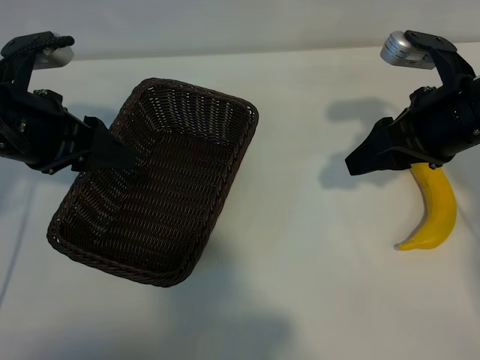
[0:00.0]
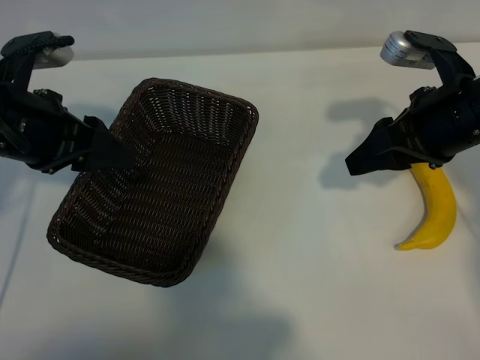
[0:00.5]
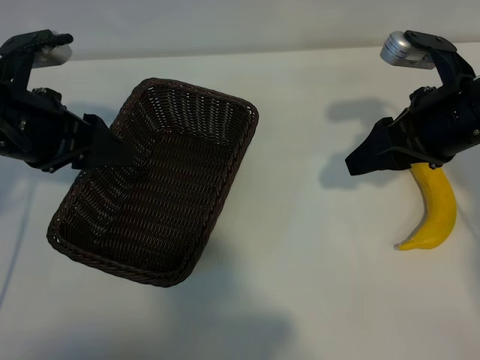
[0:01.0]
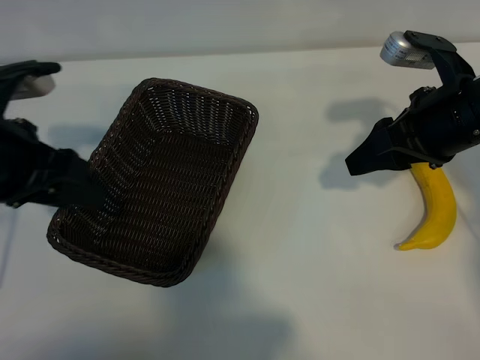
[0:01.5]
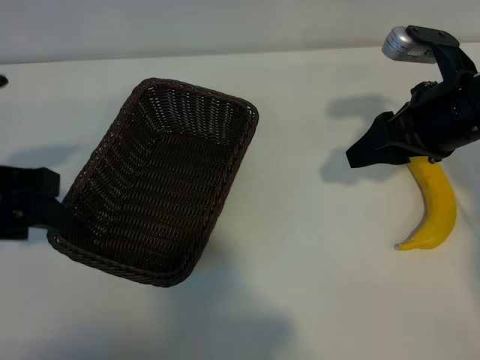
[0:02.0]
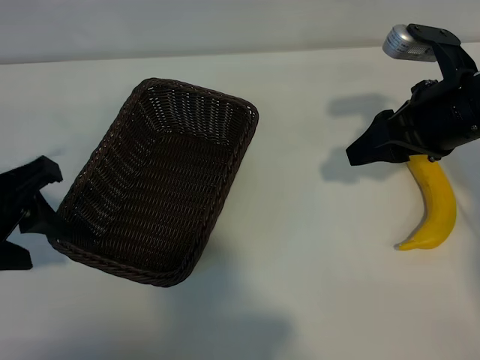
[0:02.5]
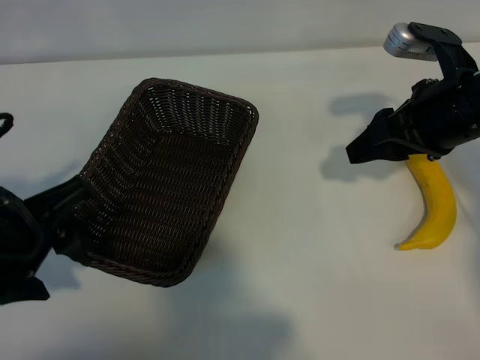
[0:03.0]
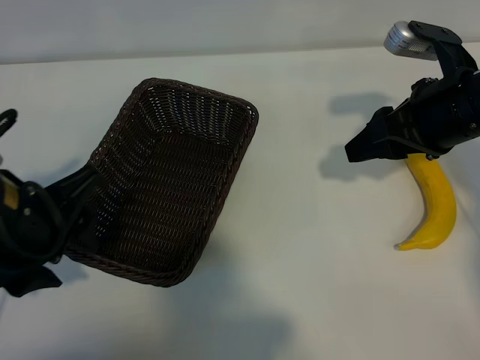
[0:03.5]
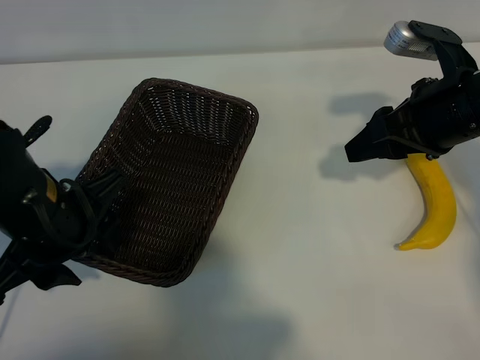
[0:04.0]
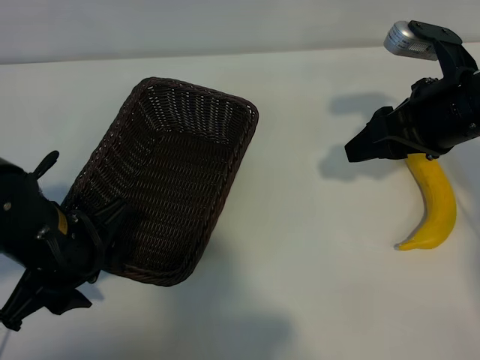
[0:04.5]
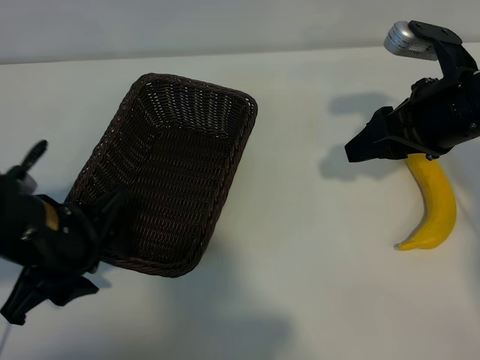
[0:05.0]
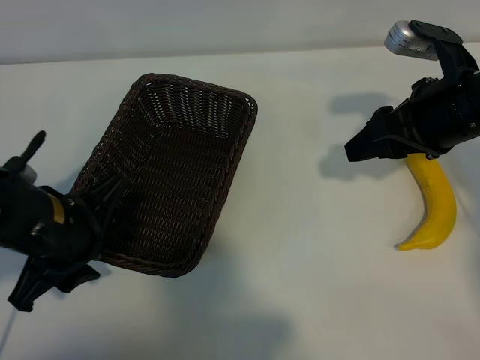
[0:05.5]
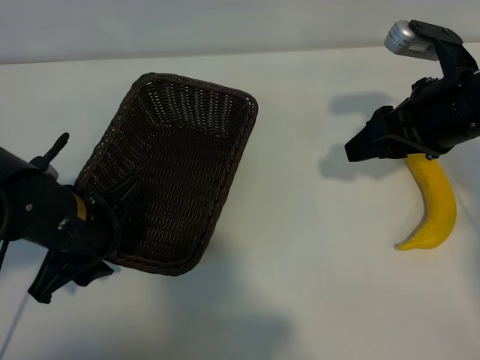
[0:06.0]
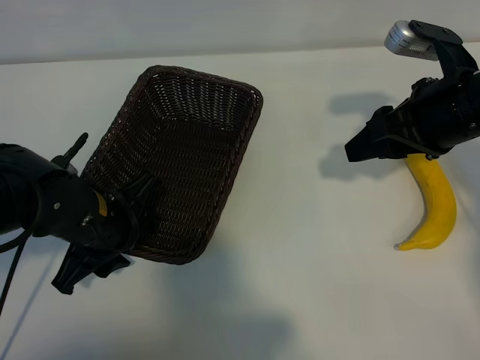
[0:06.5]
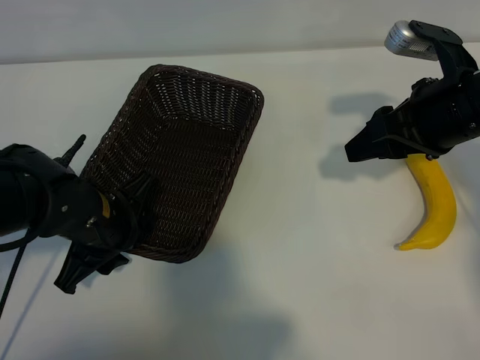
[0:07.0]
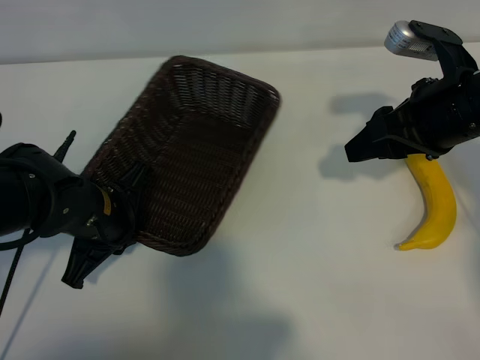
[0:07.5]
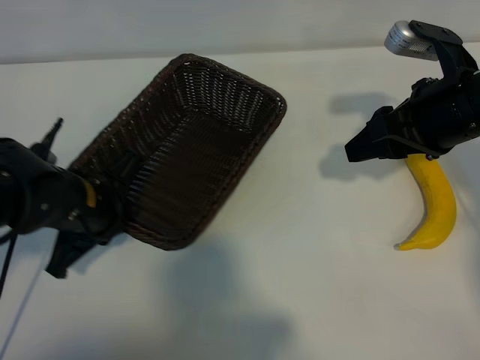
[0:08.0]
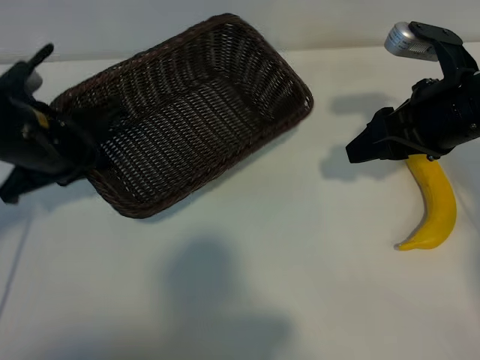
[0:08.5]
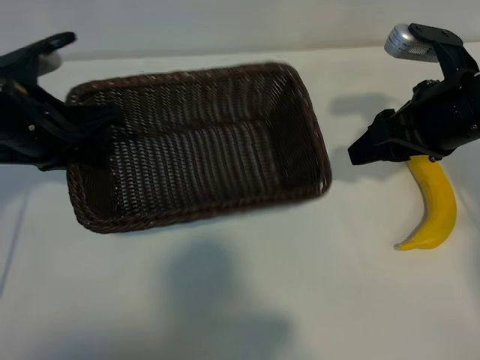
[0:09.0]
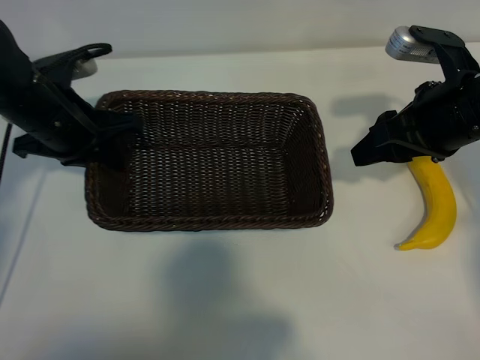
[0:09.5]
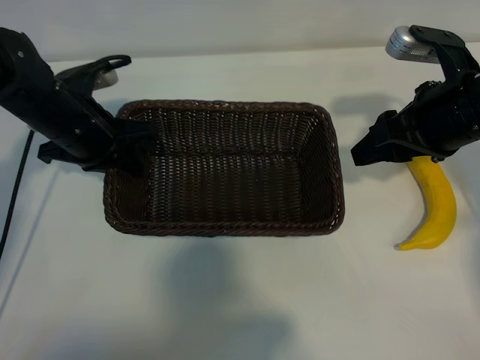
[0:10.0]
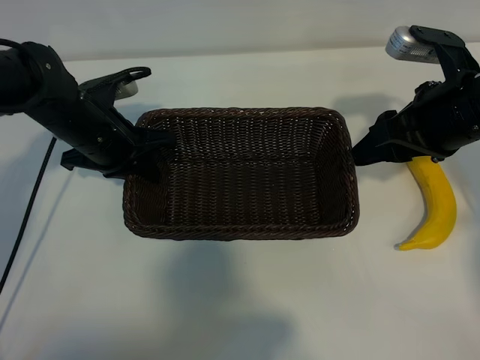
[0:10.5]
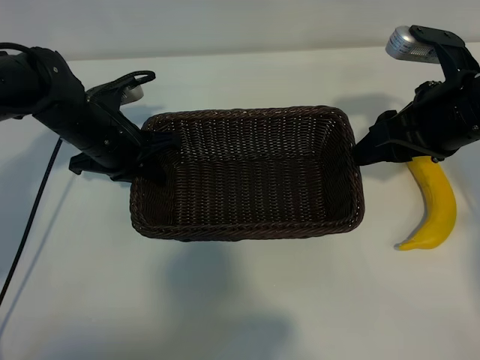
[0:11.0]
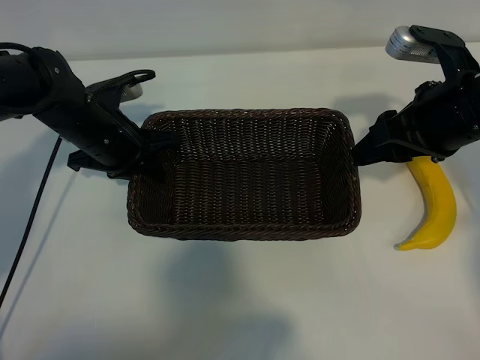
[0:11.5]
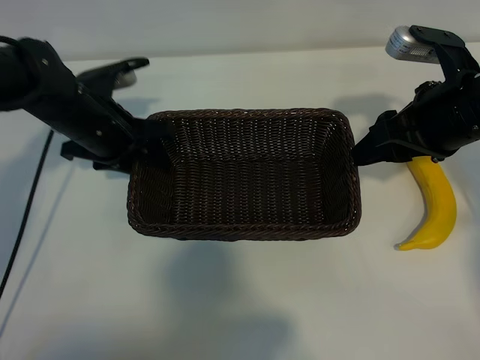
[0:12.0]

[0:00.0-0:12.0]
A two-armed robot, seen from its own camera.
Task of the whole recording: pick up the banana and put it into the basket.
Step, 0:00.5 to 0:07.5: Grasp the basket with the left gripper.

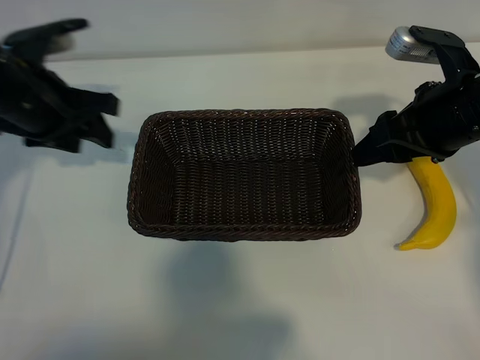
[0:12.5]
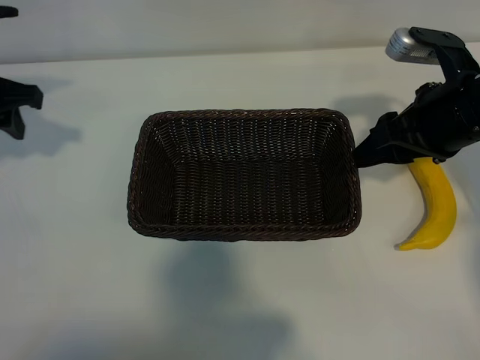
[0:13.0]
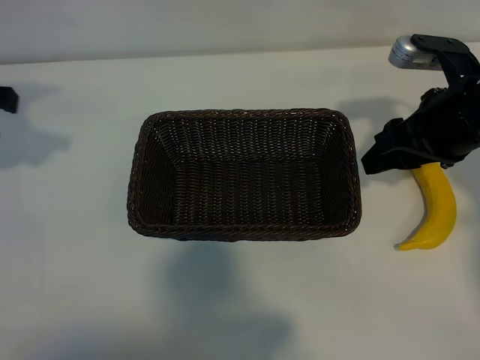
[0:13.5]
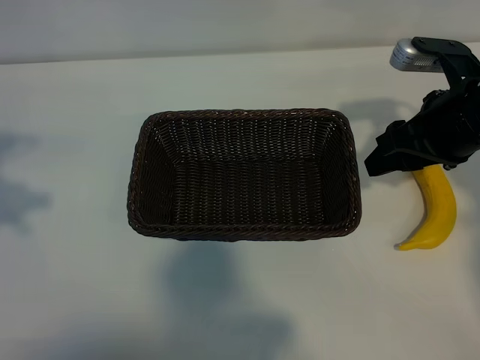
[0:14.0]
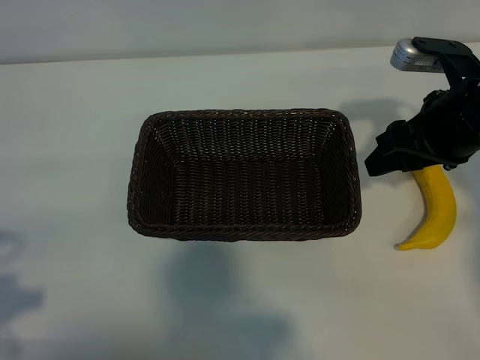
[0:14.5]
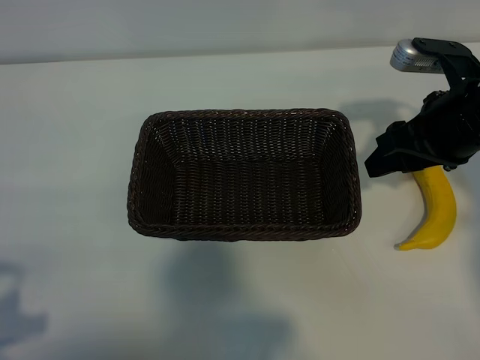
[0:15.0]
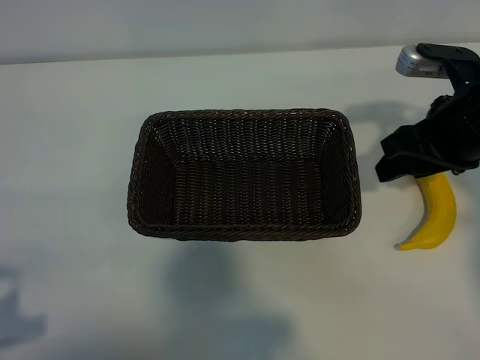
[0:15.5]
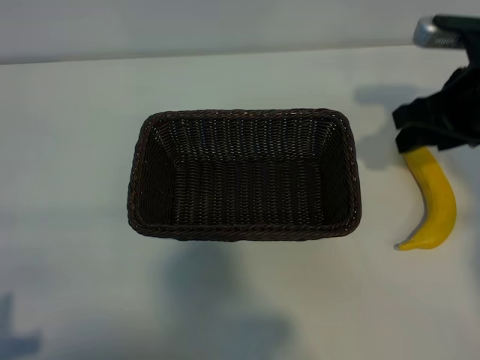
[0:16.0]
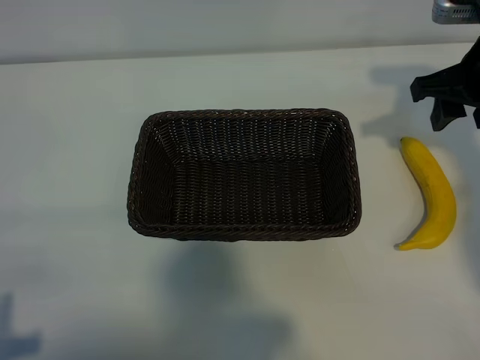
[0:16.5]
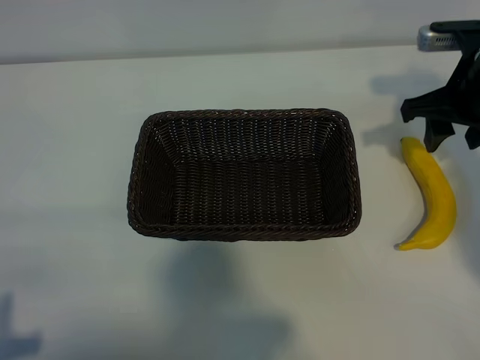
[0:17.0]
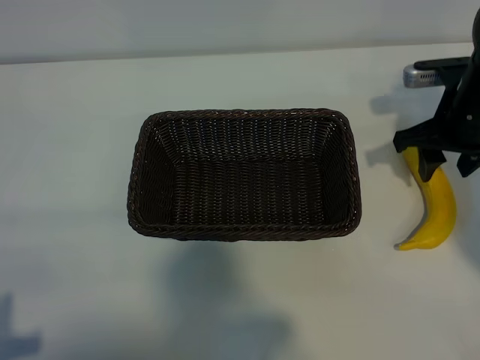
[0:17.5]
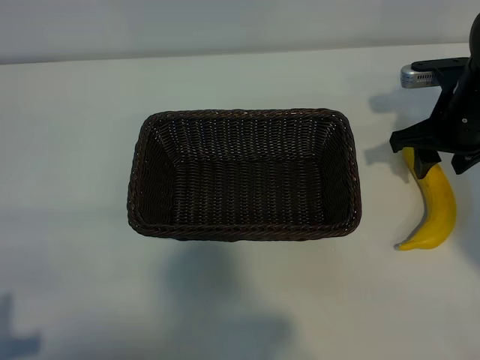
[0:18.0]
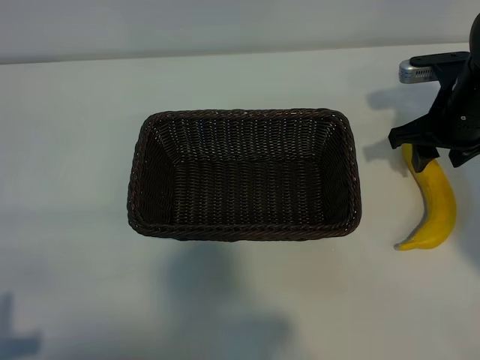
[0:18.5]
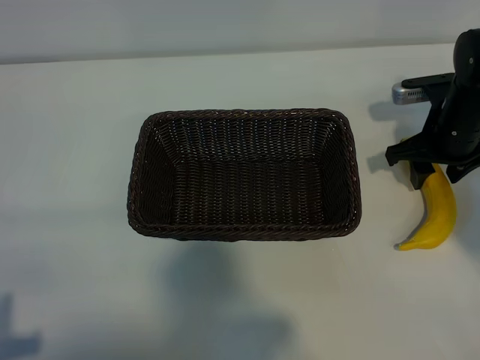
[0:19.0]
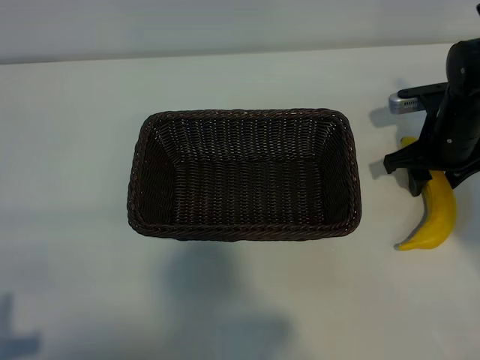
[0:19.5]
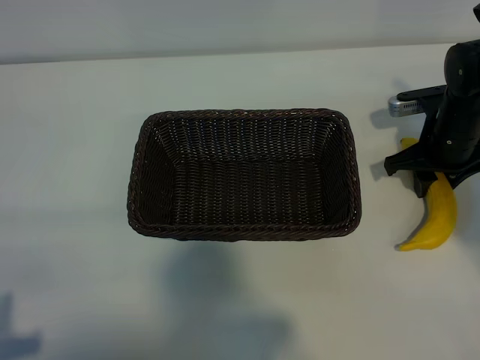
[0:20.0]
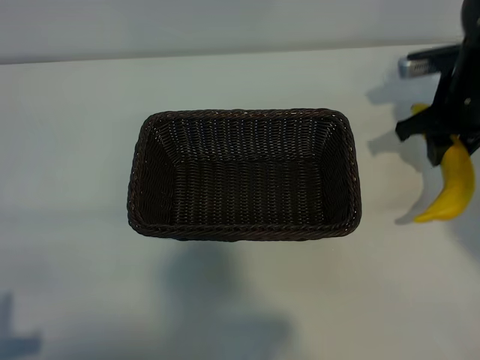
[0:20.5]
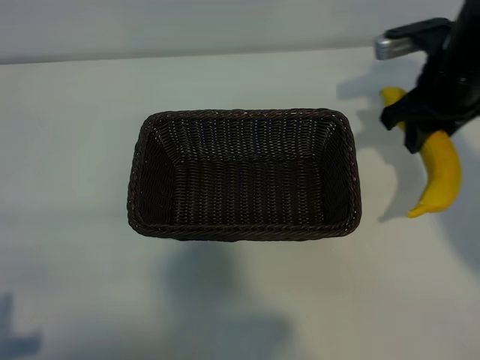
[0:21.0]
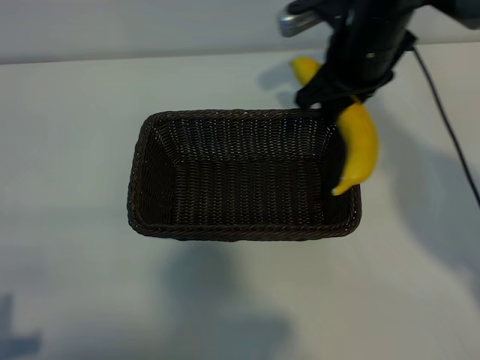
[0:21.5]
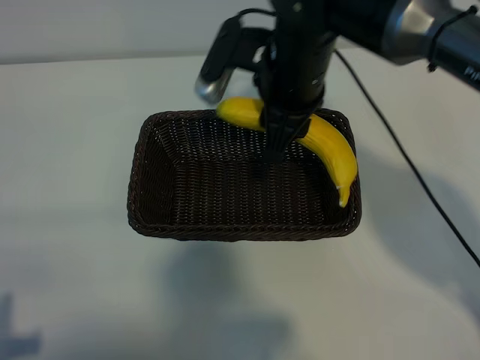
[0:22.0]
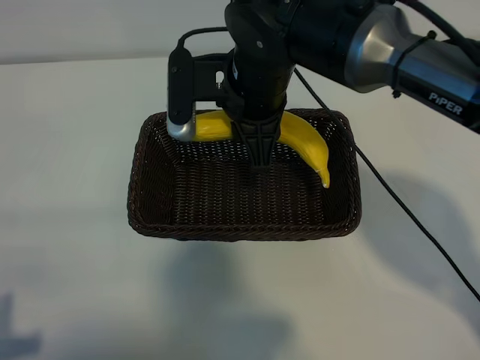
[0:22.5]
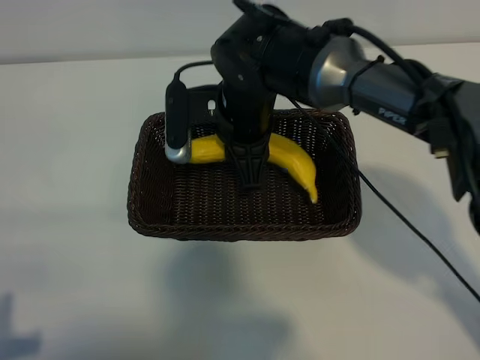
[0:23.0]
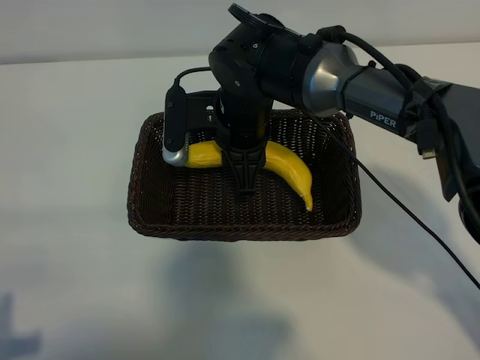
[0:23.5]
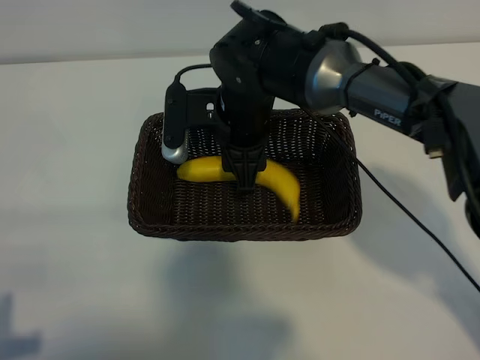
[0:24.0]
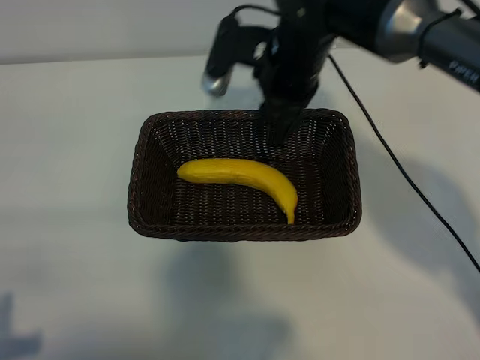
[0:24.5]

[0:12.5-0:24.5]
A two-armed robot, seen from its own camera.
Task of the whole recording: pick up the banana and put it into the basket.
Step, 0:12.5 to 0:19.5: Grasp the banana with right gripper.
Step, 0:20.0 to 0:24.0: Place the banana in the basket with right gripper.
